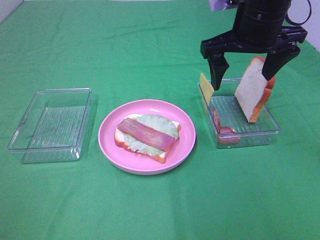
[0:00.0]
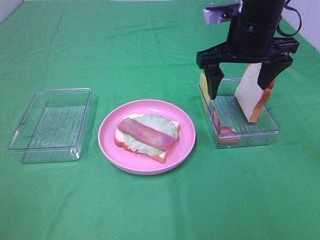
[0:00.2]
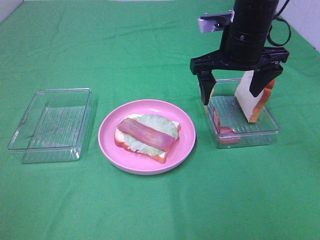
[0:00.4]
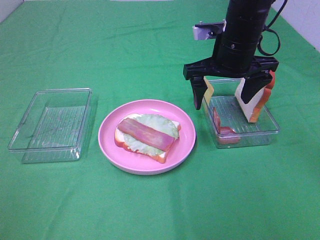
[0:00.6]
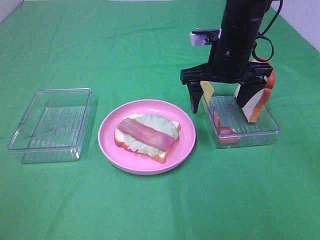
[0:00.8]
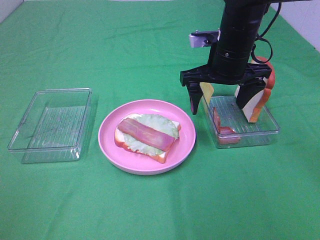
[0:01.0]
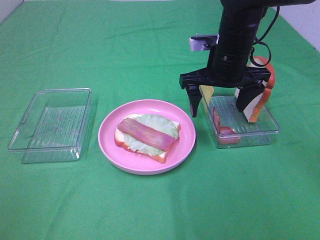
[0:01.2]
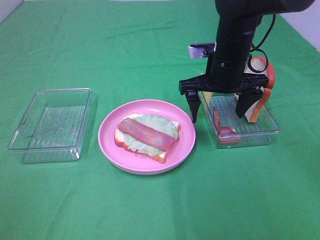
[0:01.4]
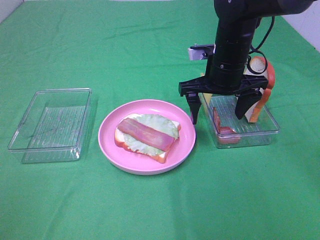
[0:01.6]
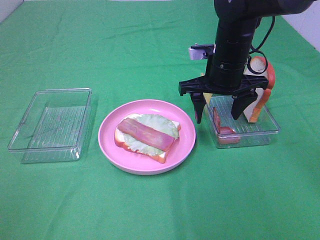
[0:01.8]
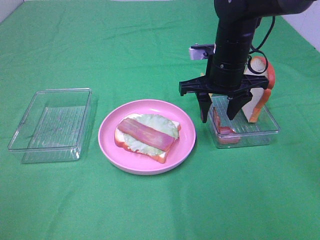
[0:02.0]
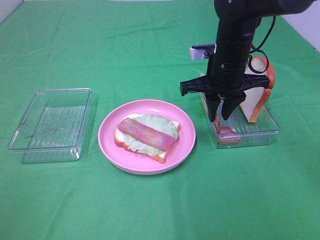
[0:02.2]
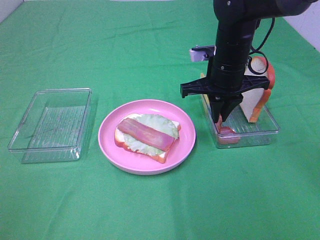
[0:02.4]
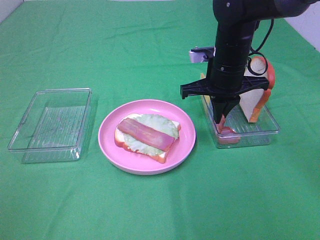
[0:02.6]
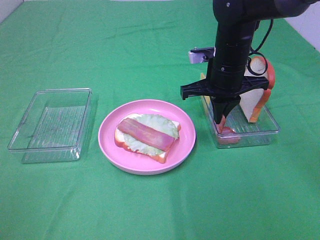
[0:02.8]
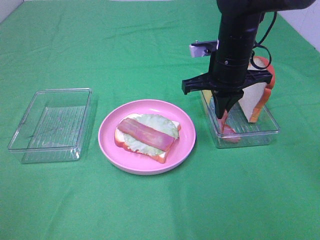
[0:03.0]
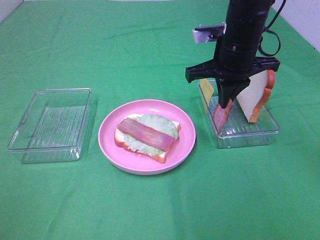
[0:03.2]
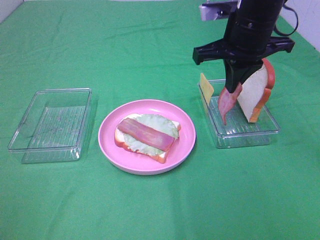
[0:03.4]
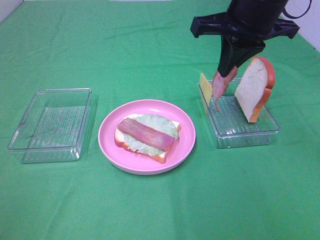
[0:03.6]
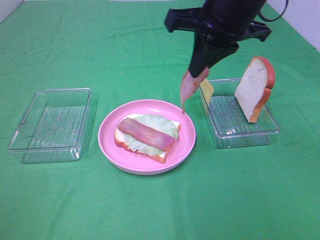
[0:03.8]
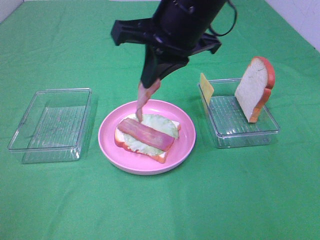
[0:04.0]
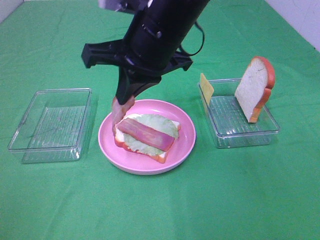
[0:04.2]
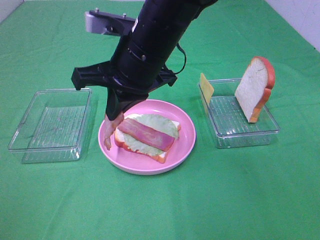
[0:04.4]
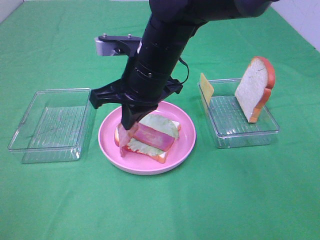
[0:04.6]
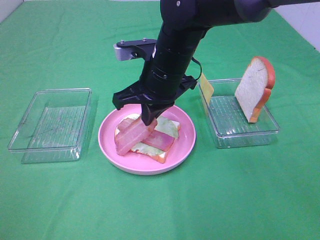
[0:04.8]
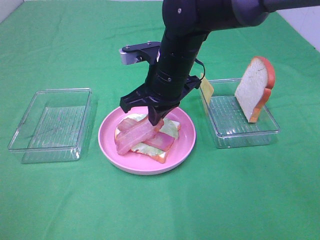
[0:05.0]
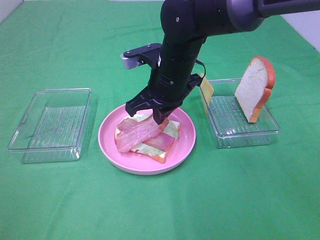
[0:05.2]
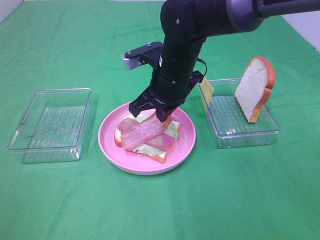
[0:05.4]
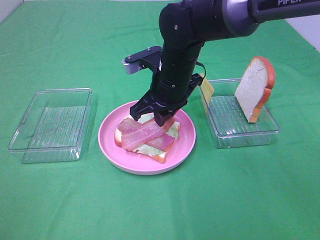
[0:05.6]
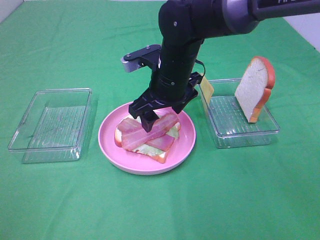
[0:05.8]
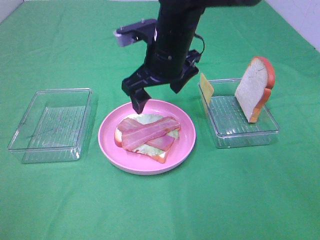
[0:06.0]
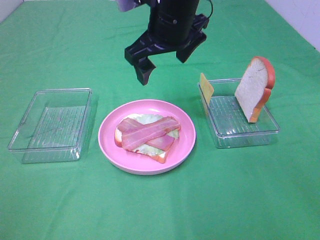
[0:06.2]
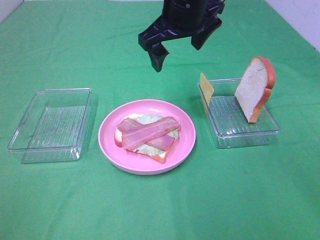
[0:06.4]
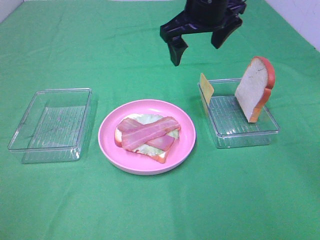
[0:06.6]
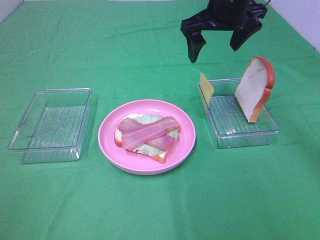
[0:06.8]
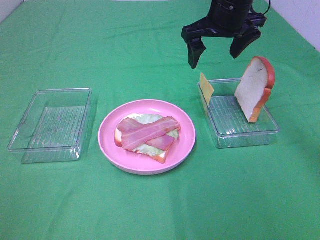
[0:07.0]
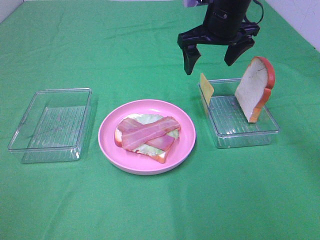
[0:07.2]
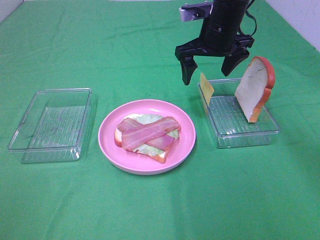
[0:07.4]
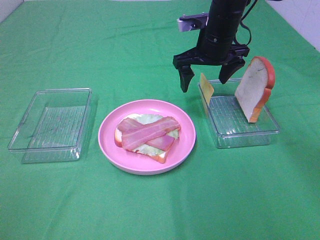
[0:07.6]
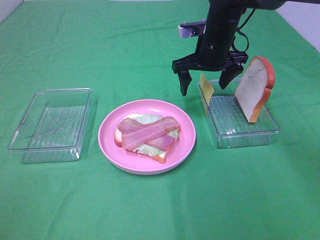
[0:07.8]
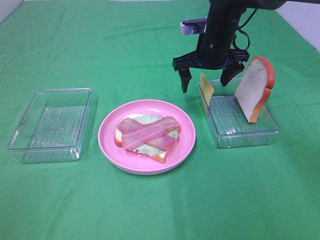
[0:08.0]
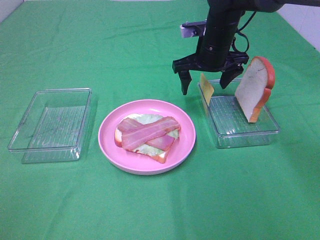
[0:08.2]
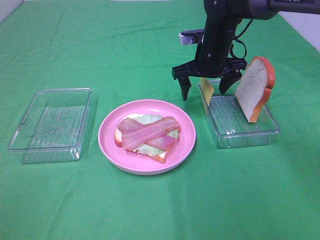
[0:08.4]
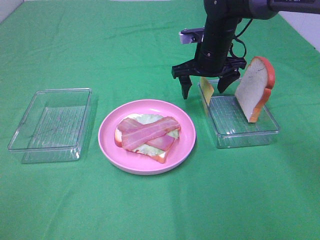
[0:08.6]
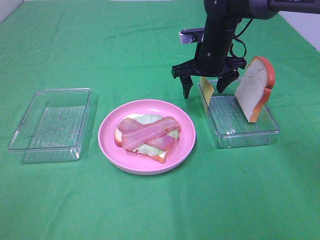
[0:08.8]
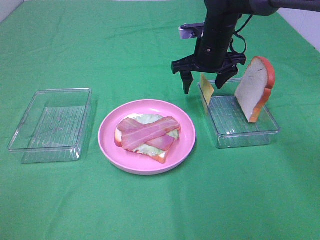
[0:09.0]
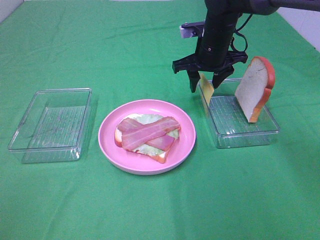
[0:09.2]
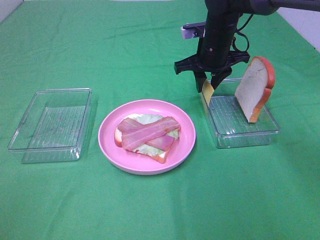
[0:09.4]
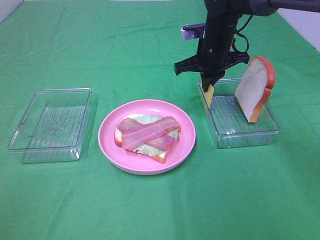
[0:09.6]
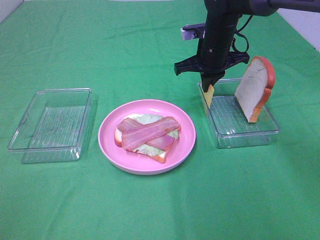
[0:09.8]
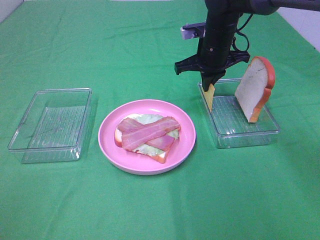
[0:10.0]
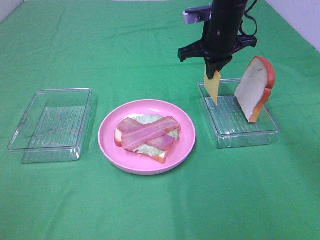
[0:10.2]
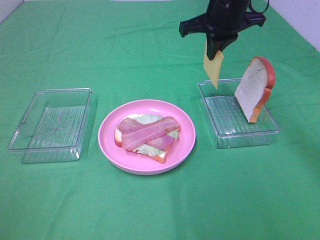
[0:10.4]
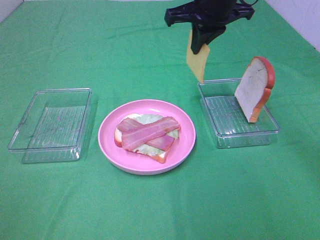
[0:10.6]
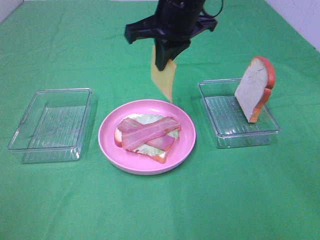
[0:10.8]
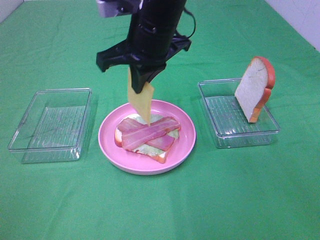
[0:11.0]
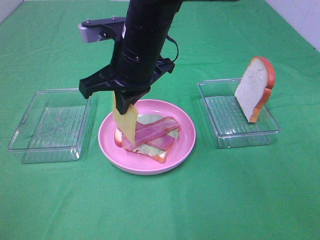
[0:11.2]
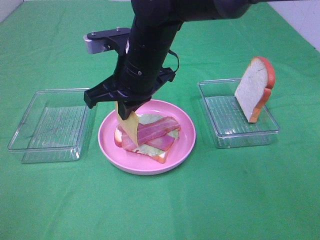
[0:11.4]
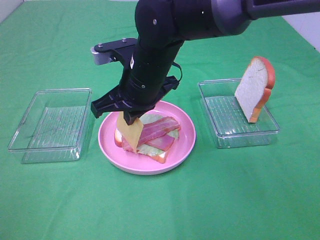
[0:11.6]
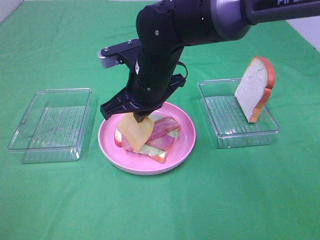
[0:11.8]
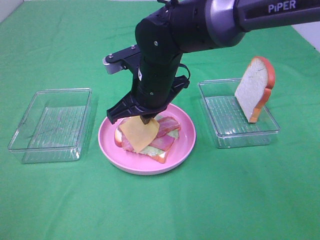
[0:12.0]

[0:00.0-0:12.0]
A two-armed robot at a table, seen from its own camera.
Task of the whole recording: Make sandwiches.
Step, 0:00.0 to 0:02.4: Right hand:grab the bacon.
Step, 0:02.6 to 0:05.8: Right hand:place bacon on bacon.
Step, 0:06.0 to 0:09.6: Right hand:grab the cheese slice.
0:00.0 to 0:01.6: The right gripper travels downward by some 10 cm.
0:01.6 to 0:03.0: The right gripper closes its fingers.
0:03.0 to 0:04.4: The right gripper moves to the left and backward, some 15 cm.
0:04.4 to 0:06.0: The right gripper moves forward, roughly 5 cm, and opens.
0:06.0 to 0:07.6: The right gripper moves to the right and forward, about 15 cm.
0:07.6 to 0:09.0: The grippers move only a little.
0:09.0 to 0:10.4: The right gripper shifts some 10 cm upward, and closes.
0:10.4 to 0:12.0: The right gripper is displaced to the left, backward and downward by approximately 20 cm.

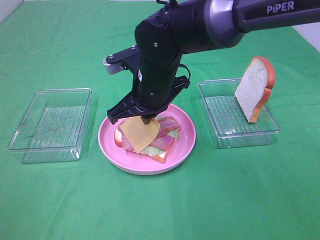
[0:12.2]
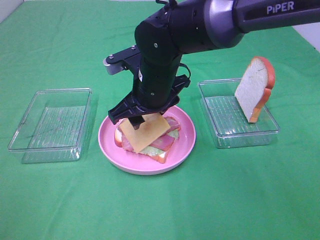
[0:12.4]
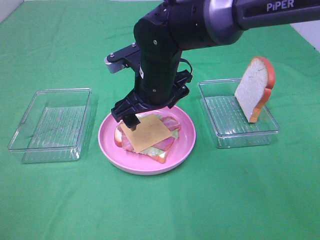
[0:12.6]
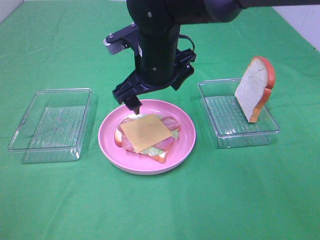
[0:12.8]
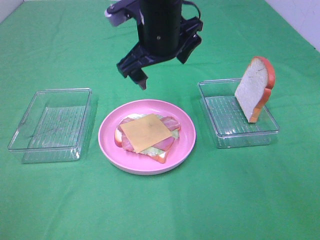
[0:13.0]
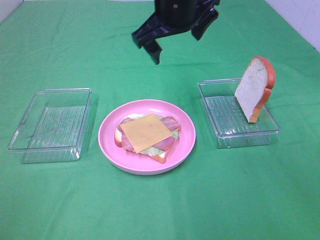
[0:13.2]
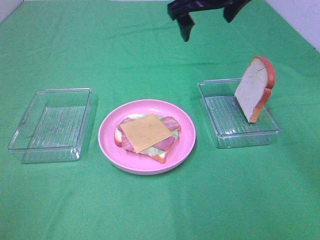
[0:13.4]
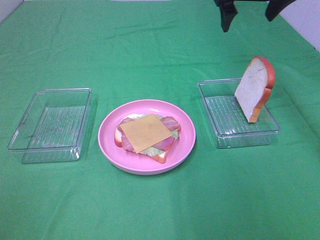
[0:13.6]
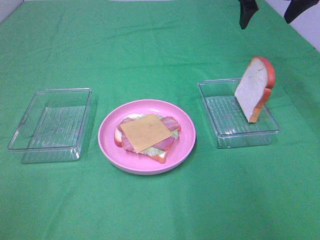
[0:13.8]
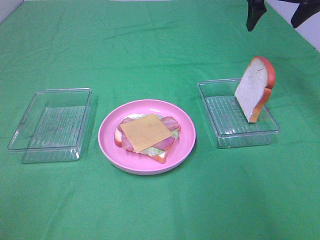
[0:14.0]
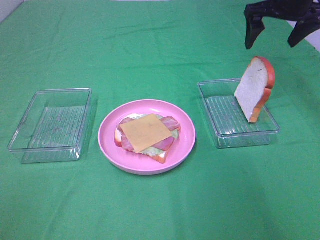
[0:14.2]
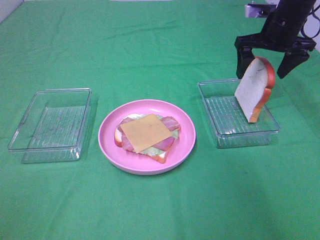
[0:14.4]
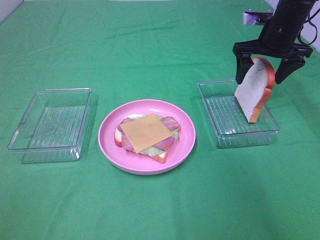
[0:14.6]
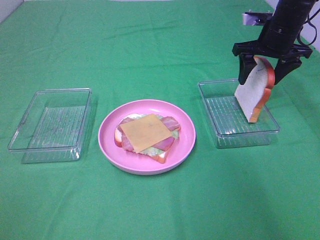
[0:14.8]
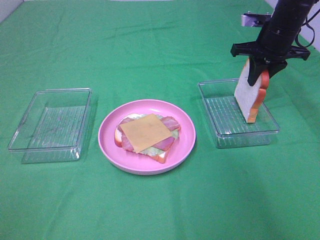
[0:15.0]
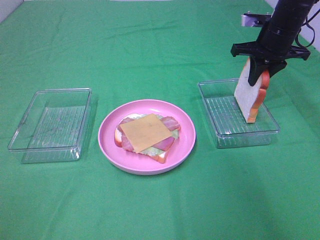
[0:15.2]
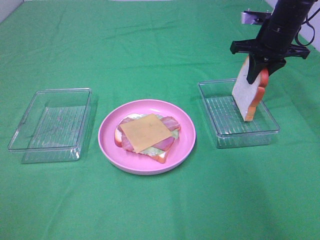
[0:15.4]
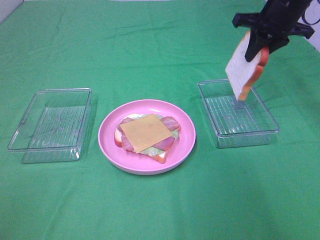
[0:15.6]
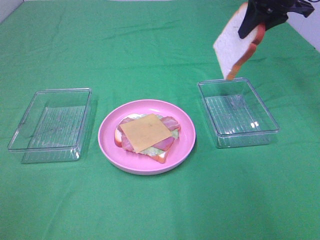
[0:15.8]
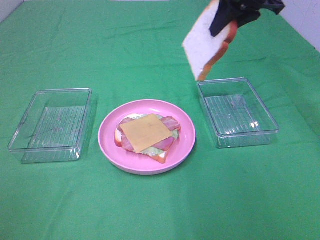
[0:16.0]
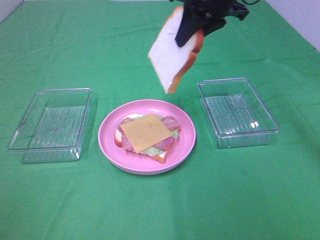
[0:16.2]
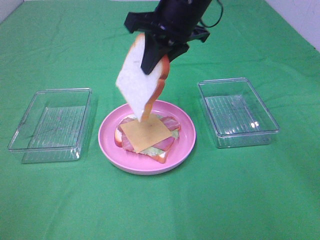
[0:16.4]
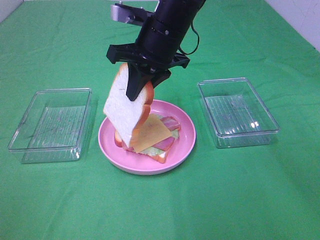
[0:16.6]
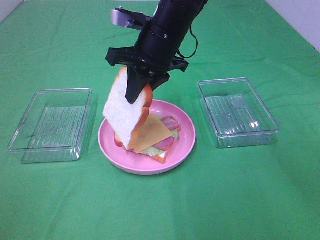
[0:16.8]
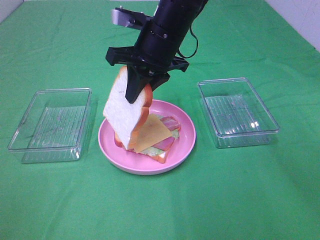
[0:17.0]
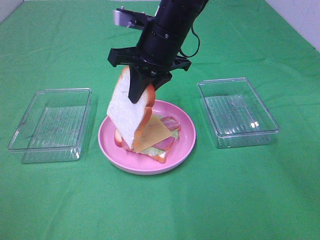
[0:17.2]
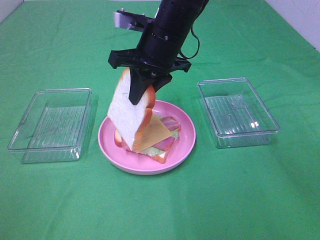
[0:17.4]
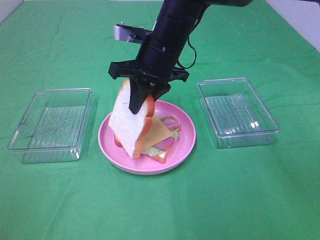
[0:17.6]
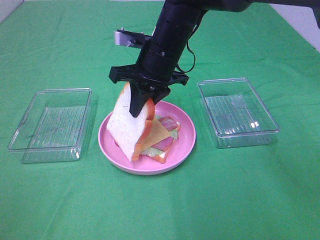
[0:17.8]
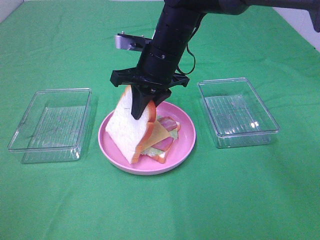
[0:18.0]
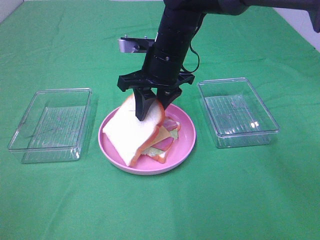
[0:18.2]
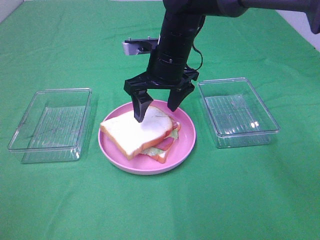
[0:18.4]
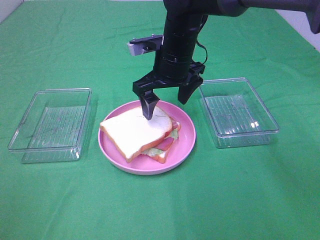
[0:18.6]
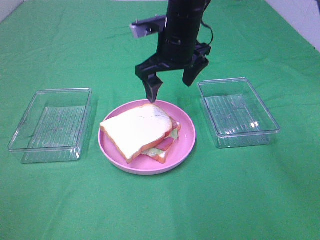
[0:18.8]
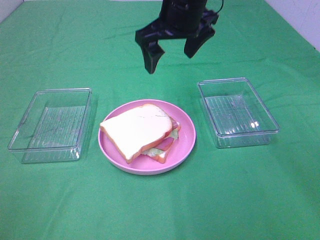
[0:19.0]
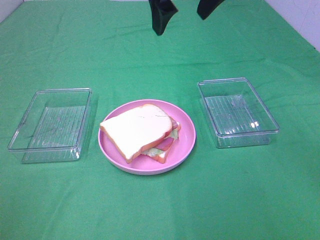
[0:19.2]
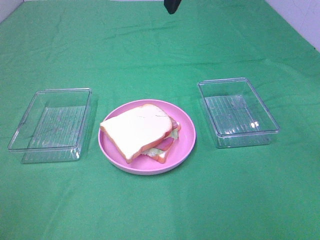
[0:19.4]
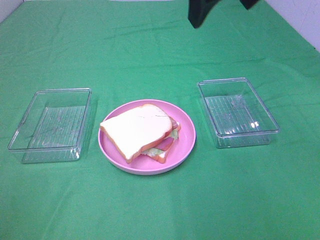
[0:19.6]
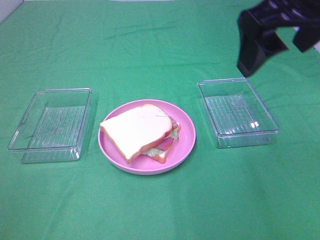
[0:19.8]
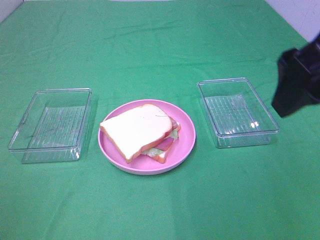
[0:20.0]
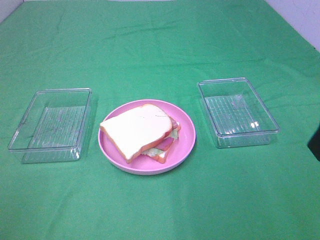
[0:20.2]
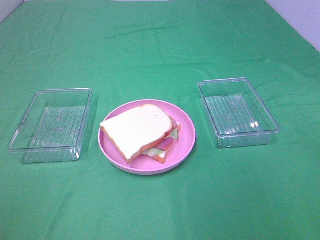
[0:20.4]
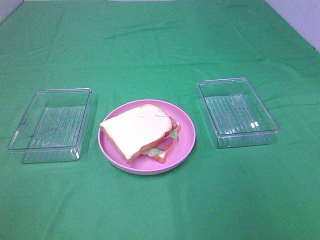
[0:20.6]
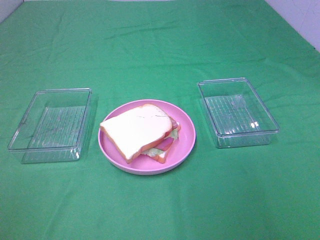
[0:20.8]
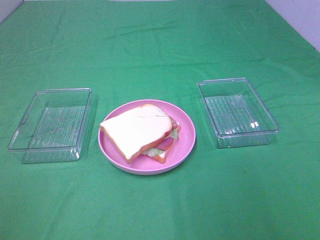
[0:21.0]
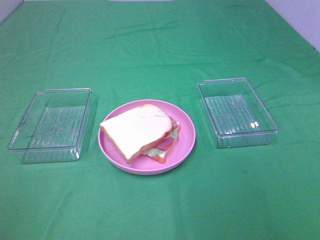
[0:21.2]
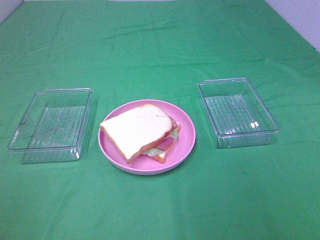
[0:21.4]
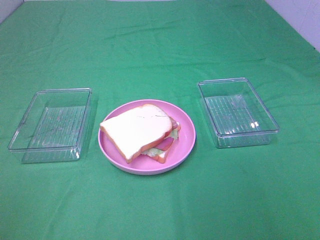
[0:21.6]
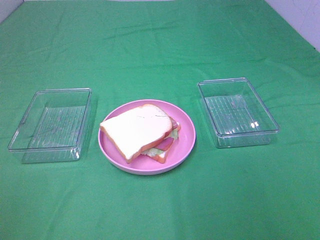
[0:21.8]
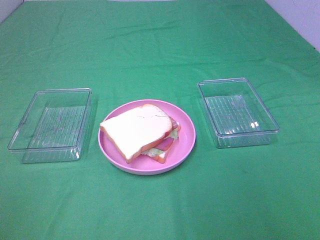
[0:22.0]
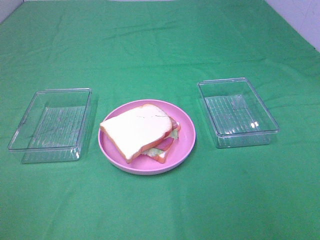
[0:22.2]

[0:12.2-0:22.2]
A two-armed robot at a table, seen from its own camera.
Task of the whole recording: Make sandwiches.
Step, 0:12.8 to 0:15.0: Right hand:grab the bread slice.
Step, 0:15.2 to 0:18.6: Right hand:place the bread slice on the cheese slice.
0:12.2 to 0:13.6: The right gripper goes about 30 cm to the right, upward and forward, and opens up.
0:13.6 to 0:15.0: The right gripper is displaced downward and to the right by approximately 15 cm, and closes up.
0:15.0 to 0:16.4: The right gripper goes about 20 cm to the left and backward.
0:16.4 to 0:18.0: The right gripper travels downward by about 10 cm.
0:18.0 to 0:19.4: The right gripper moves upward, about 20 cm, and opens.
